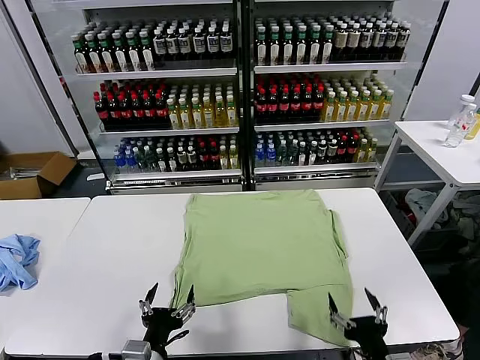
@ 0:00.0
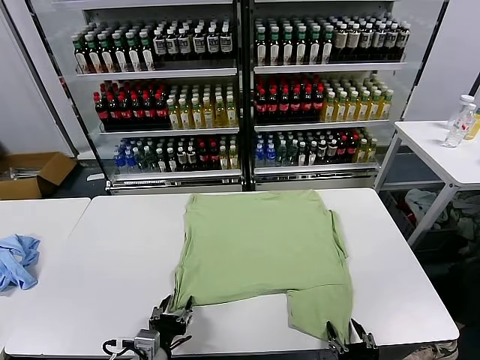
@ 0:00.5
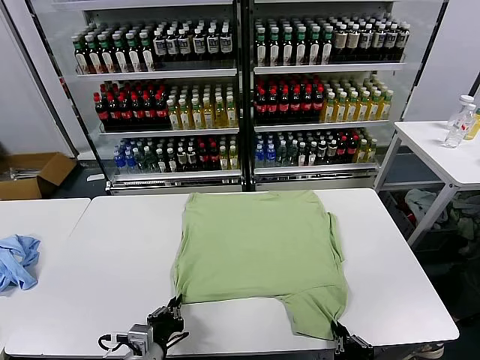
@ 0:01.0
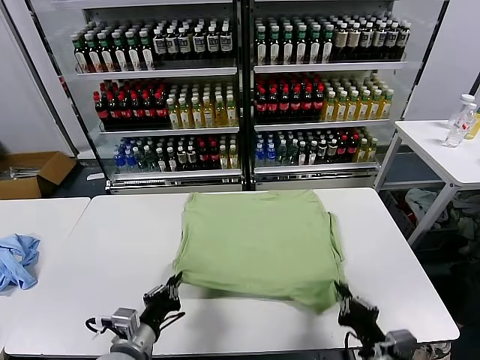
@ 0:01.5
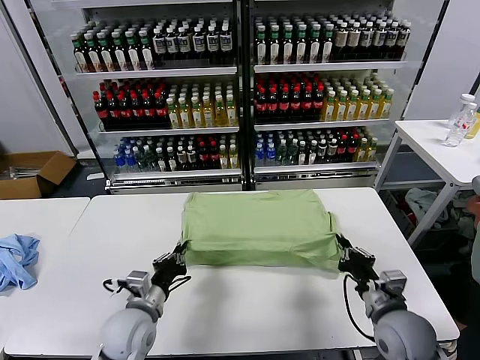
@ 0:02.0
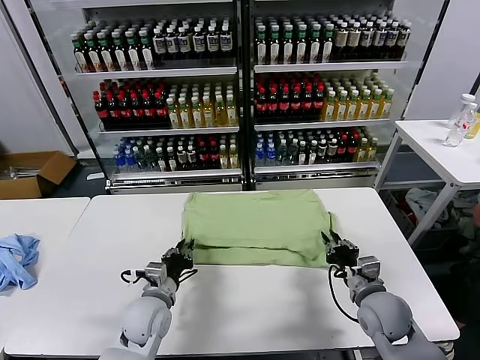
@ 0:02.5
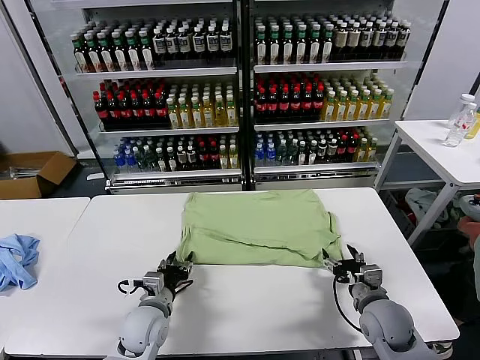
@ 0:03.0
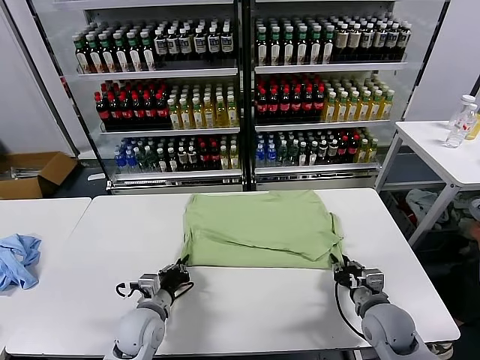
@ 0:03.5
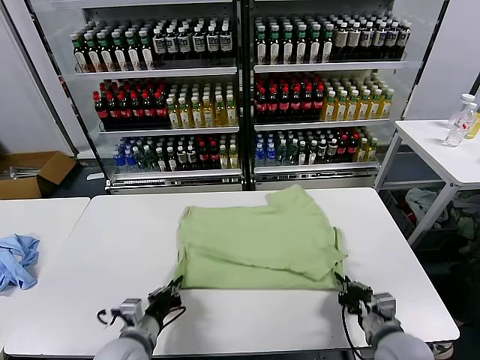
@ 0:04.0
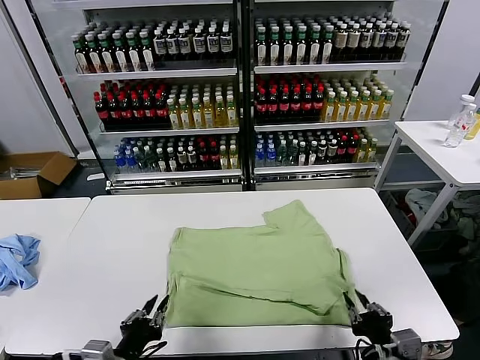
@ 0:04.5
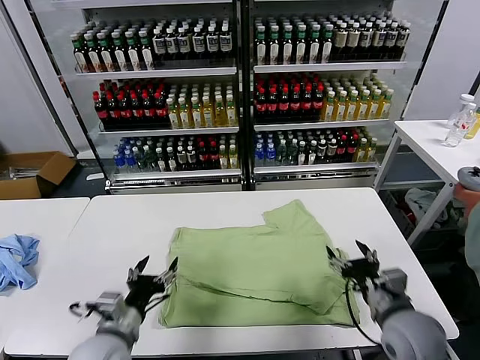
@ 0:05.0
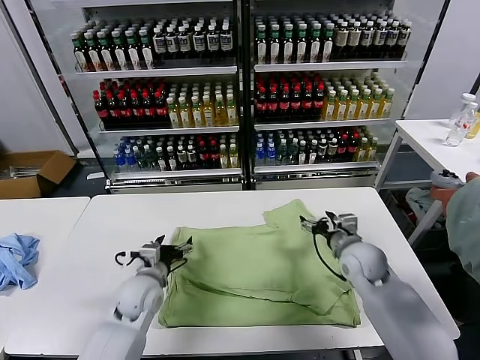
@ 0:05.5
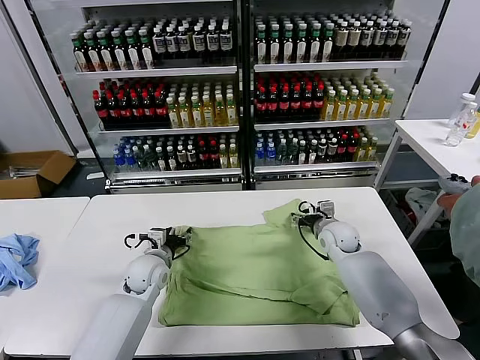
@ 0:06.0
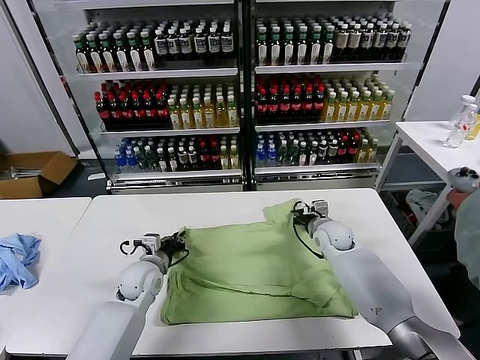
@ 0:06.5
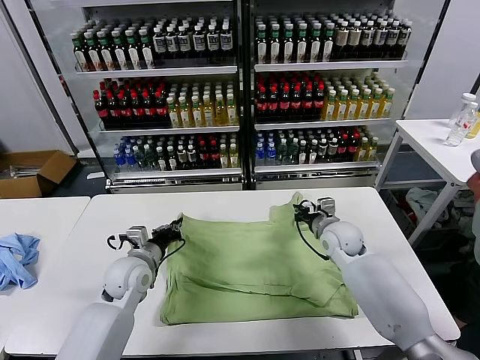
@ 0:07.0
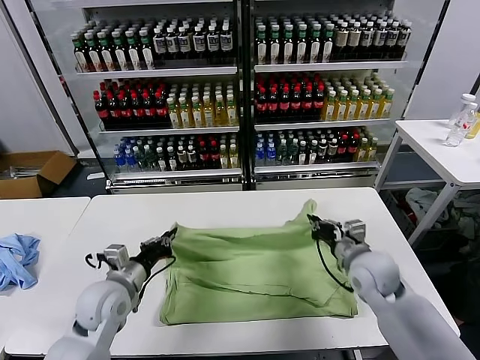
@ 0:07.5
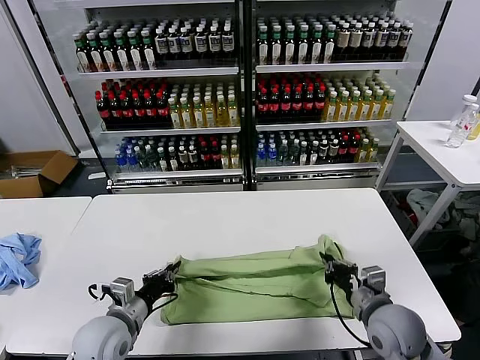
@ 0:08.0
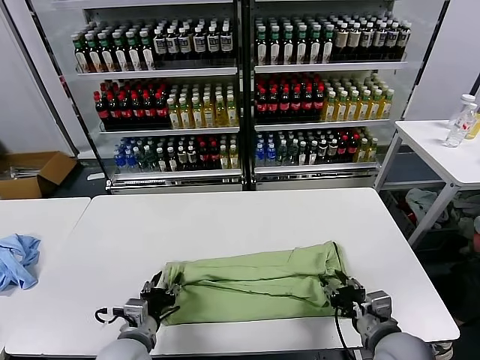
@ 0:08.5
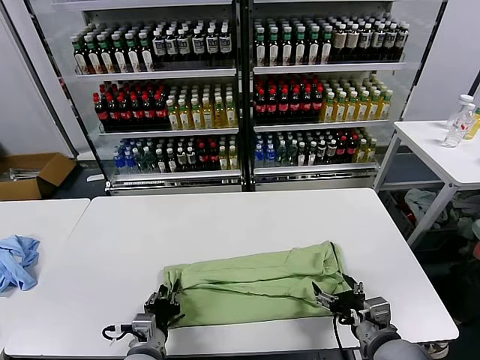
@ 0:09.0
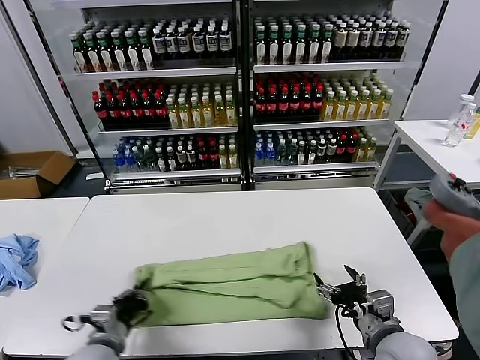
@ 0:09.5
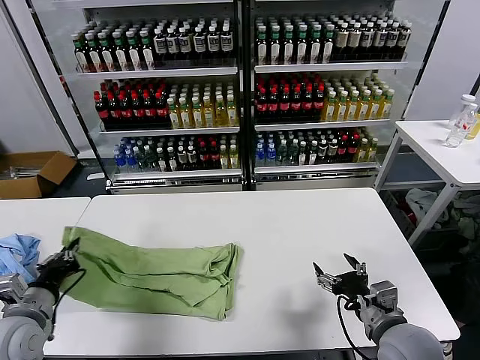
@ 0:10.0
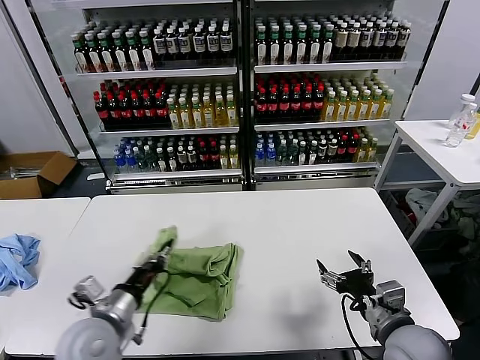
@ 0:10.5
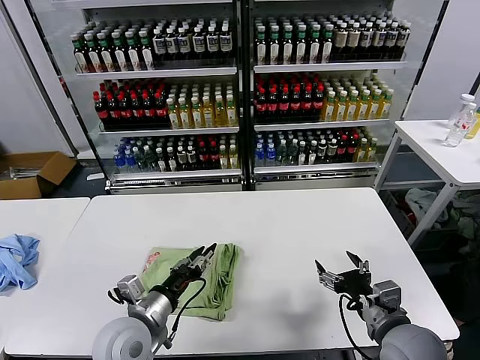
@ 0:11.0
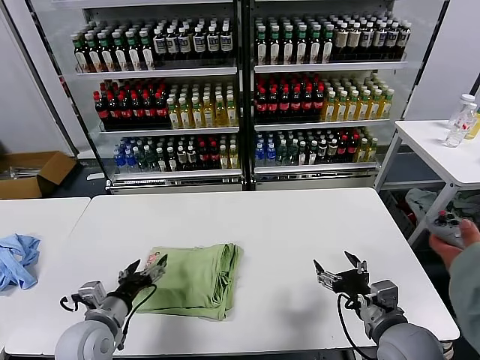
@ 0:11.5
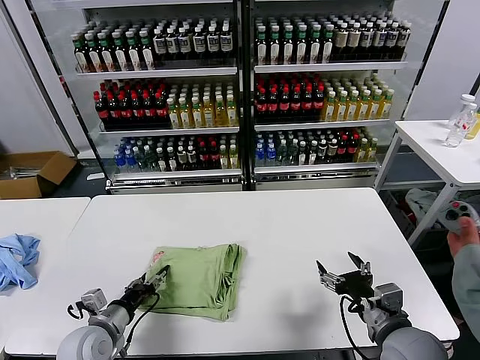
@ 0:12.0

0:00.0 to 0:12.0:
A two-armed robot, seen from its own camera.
Task of the whole recording: fold and organize the clothes.
Step, 0:00.0 to 0:01.0: use both grippers simultaneously to clamp the lower edge of the clothing fabric.
Step, 0:01.5 to 0:02.5: use both grippers to drag the lower edge of the fabric forward and fold it over the upper edge.
Step, 0:03.0 to 0:04.5: Drag the clothes downward with both gripper.
Step, 0:05.0 to 0:06.5: use both grippers simultaneously to clamp the upper edge of the clothing fabric.
Step, 0:07.0 to 0:08.0: use both grippers to drag the upper edge of the fabric backward and fold it over the lower edge.
Step, 0:08.5 to 0:09.0: use the left gripper to clamp the left edge of the fabric.
Step, 0:09.5 to 0:11.0: use the left gripper to drag the left edge of the fabric to the left and folds it over the right edge.
0:02.0 to 0:04.0: The grippers both shift backward by some 10 cm. The right gripper opens and closes again. The left gripper opens, then closes again.
0:04.0 to 0:06.0: The left gripper is displaced forward by some 20 cm, and opens its fingers. Meanwhile the right gripper travels forward by some 30 cm, and opens its fingers.
0:06.0 to 0:08.0: The right gripper shifts approximately 25 cm backward, and closes, while the left gripper goes some 15 cm backward, and closes up.
0:08.0 to 0:10.0: The right gripper opens; the left gripper heads to the left and upward, covering roughly 15 cm, and opens, then closes again.
0:10.0 to 0:12.0: The left gripper is displaced downward and to the right by about 15 cm, and opens.

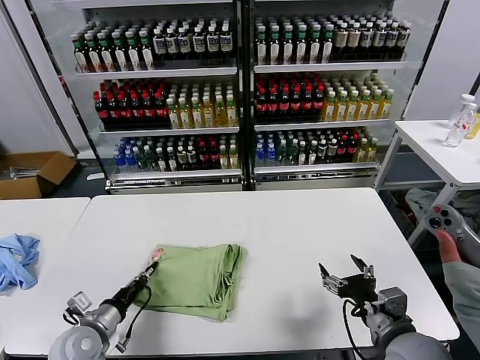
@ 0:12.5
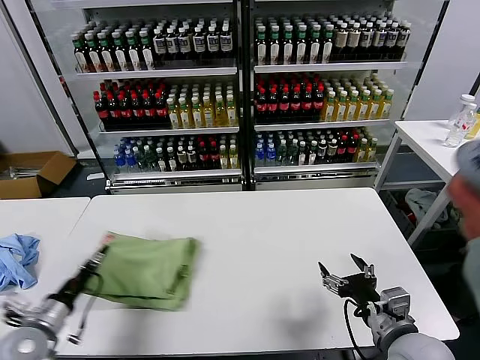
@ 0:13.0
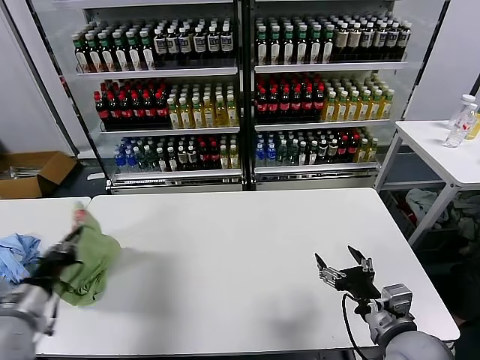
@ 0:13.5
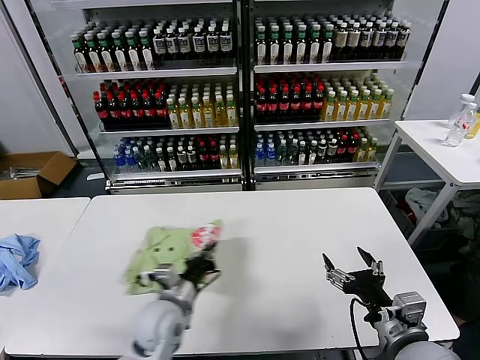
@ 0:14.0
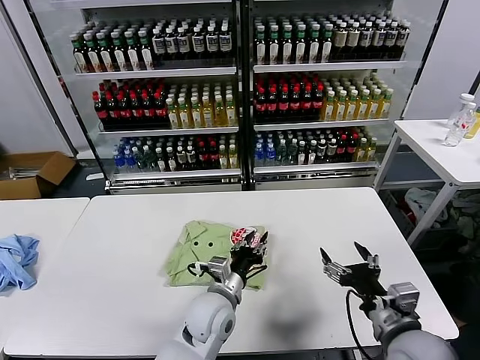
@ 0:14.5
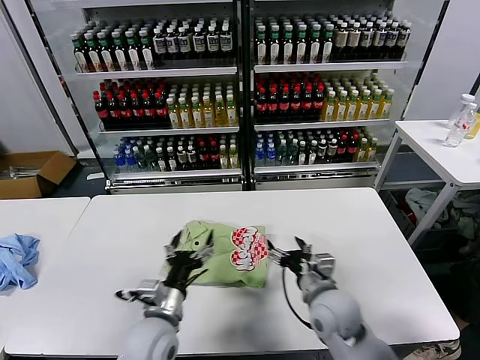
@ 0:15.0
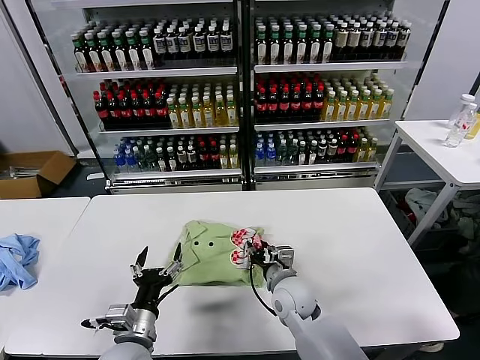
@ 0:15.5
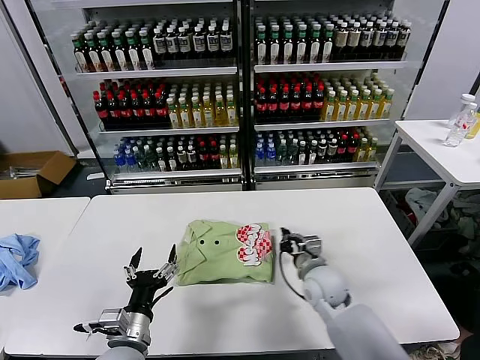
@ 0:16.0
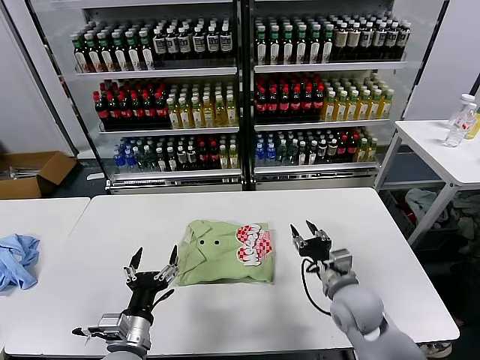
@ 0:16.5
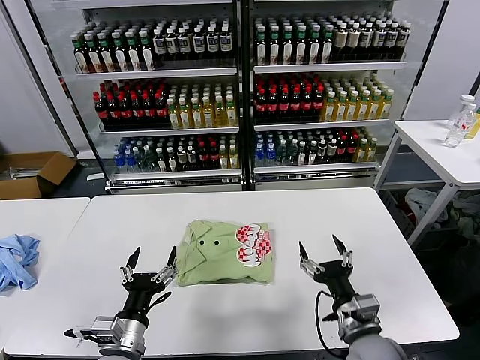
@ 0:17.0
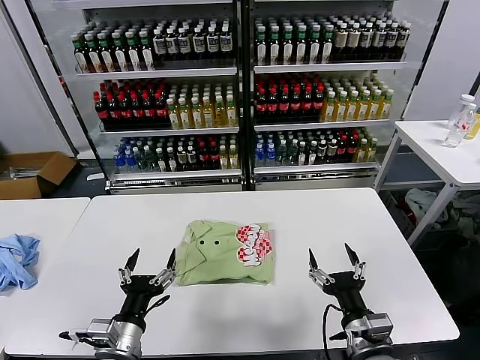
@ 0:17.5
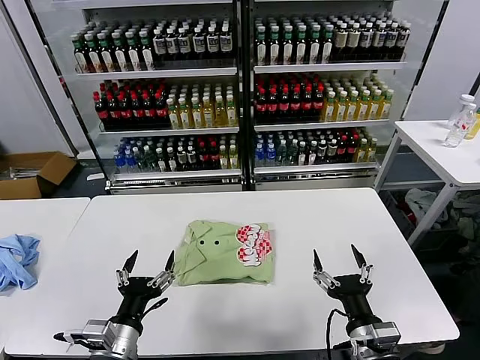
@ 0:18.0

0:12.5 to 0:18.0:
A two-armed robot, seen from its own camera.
Task of the whole recording: fold and organize the clothes.
Step, 0:12.5 to 0:14.5: Flip the folded clothes over with left gripper.
Step, 0:15.0 to 0:16.0: Drag the clothes to the center of the table.
0:12.5 to 0:14.5: The left gripper shifts some 30 cm to the right.
0:14.5 to 0:16.0: The left gripper shifts approximately 20 cm to the left and backward, and opens its fingers; the right gripper shifts about 25 cm forward, downward and to the left, and closes its fingers.
0:16.0 to 0:18.0: The right gripper goes some 20 cm backward, and opens its fingers. Meanwhile the left gripper shifts by some 5 cm.
